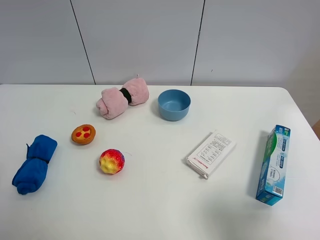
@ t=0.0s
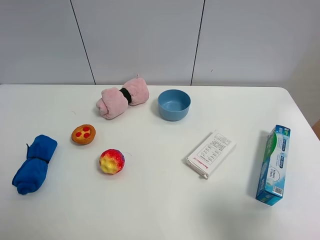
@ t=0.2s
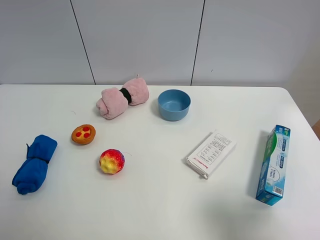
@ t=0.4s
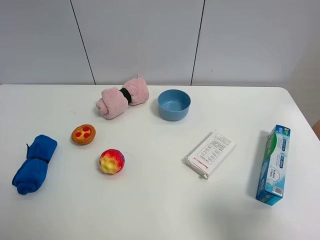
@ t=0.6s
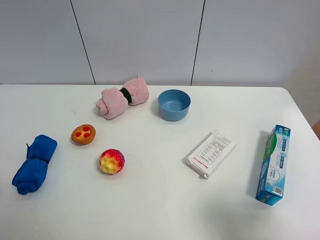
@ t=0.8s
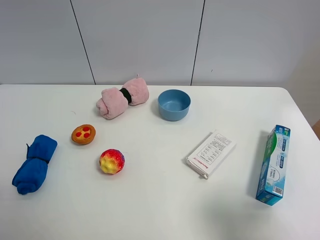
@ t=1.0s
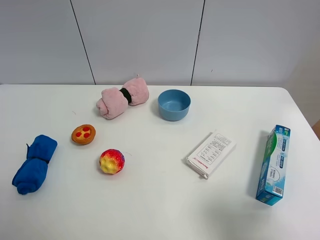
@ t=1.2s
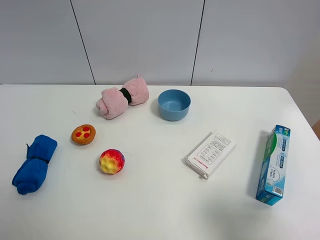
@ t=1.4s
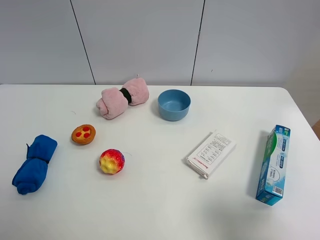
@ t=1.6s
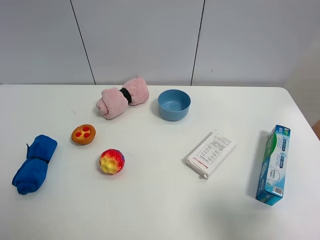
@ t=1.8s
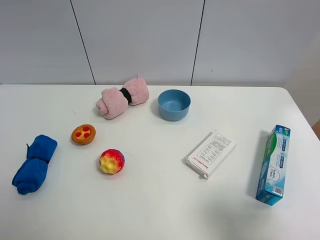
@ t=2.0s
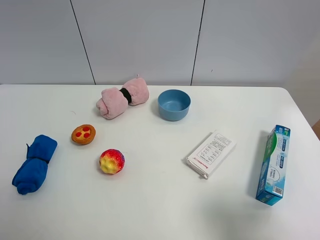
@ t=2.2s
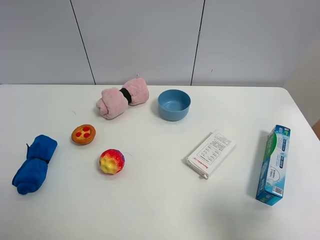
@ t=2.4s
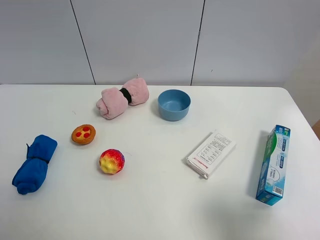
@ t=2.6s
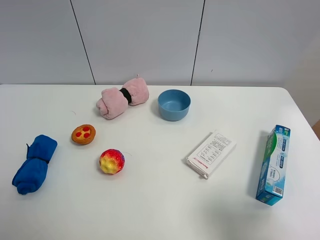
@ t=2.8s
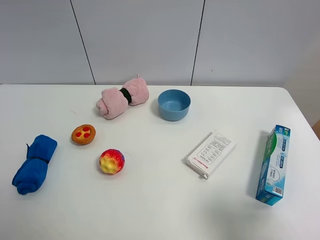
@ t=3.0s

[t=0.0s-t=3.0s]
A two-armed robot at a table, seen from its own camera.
Task of the whole recording: the gripper move the object.
t=1.6s to t=3.0s: Both grippers stay put.

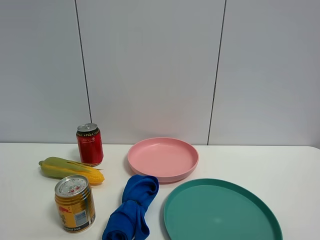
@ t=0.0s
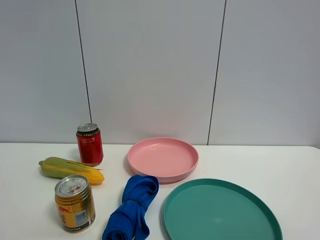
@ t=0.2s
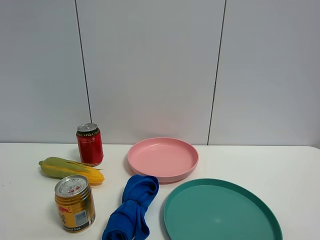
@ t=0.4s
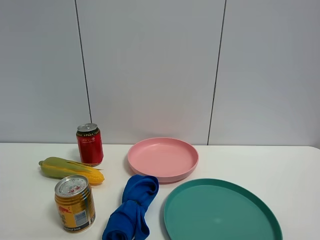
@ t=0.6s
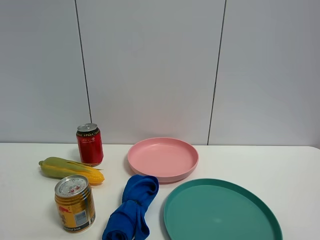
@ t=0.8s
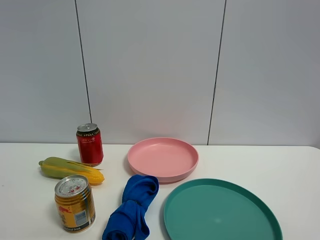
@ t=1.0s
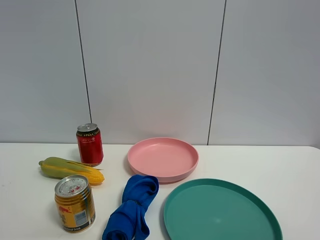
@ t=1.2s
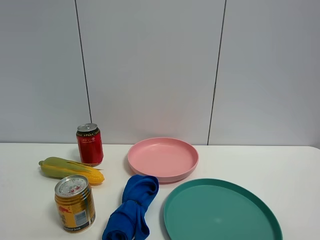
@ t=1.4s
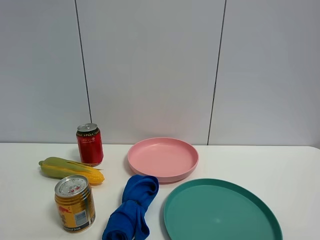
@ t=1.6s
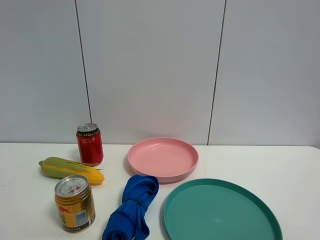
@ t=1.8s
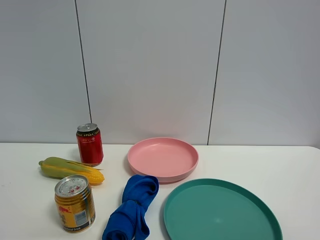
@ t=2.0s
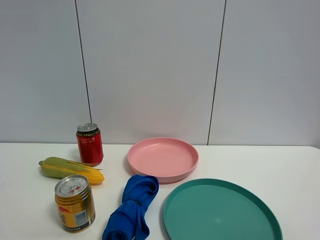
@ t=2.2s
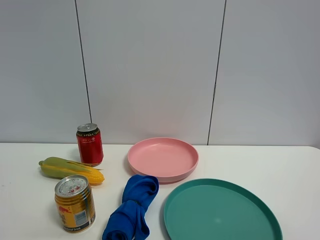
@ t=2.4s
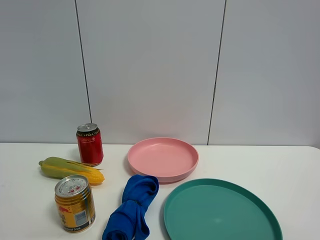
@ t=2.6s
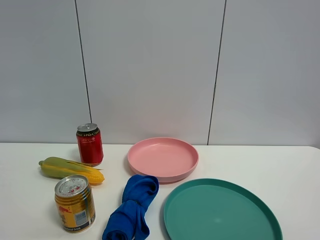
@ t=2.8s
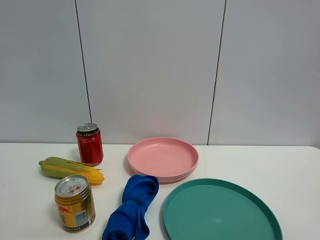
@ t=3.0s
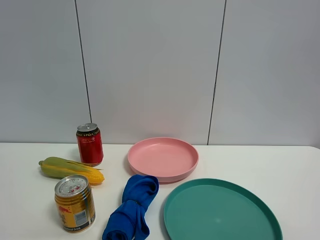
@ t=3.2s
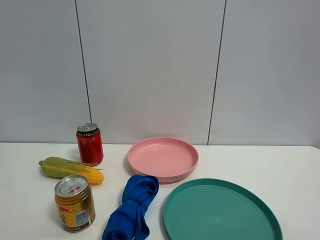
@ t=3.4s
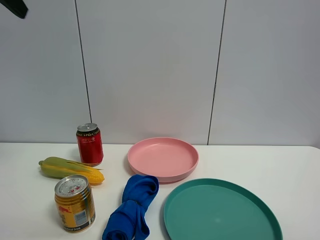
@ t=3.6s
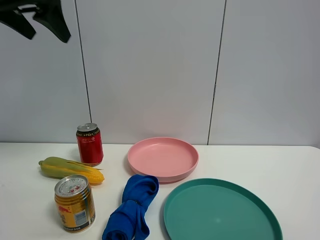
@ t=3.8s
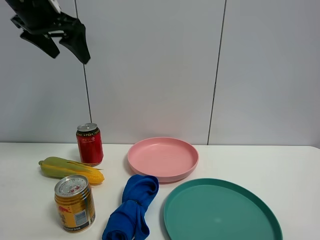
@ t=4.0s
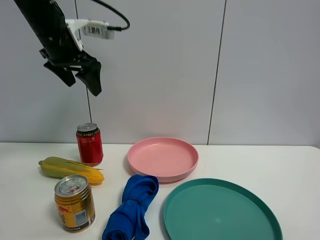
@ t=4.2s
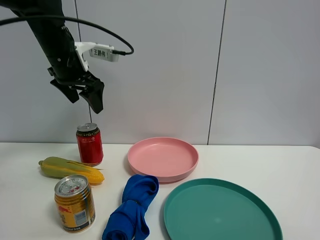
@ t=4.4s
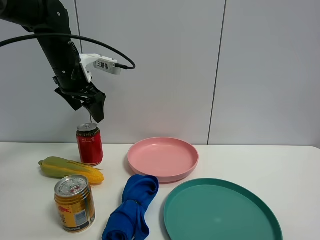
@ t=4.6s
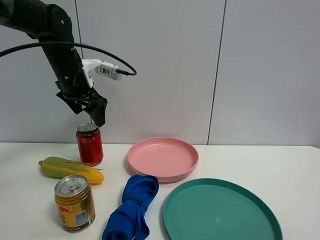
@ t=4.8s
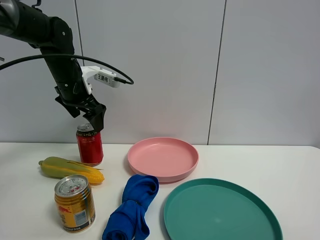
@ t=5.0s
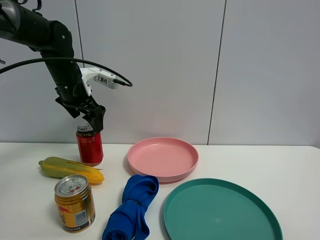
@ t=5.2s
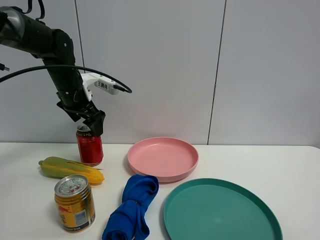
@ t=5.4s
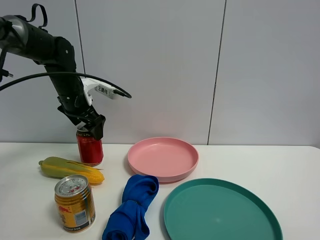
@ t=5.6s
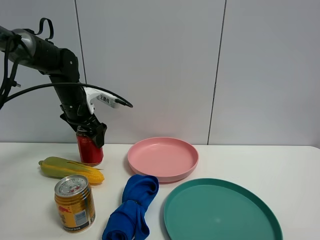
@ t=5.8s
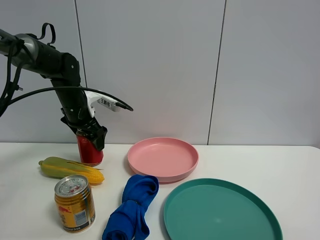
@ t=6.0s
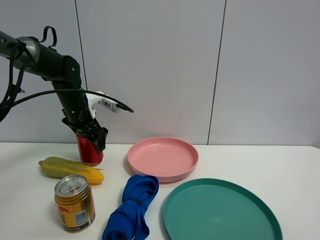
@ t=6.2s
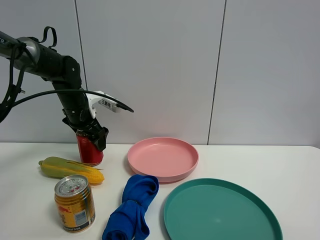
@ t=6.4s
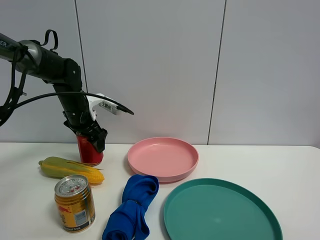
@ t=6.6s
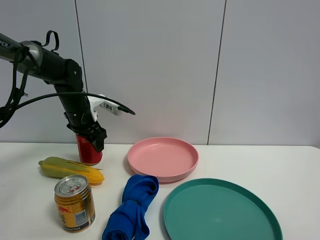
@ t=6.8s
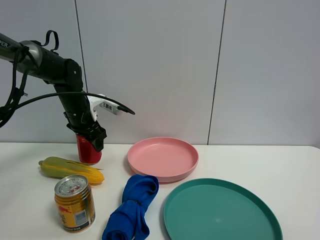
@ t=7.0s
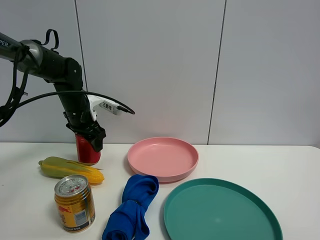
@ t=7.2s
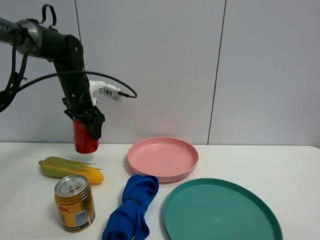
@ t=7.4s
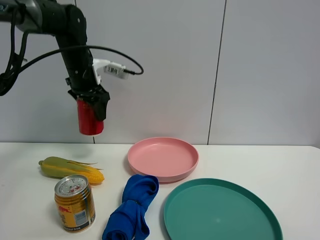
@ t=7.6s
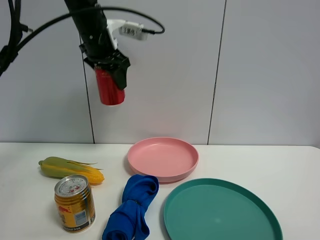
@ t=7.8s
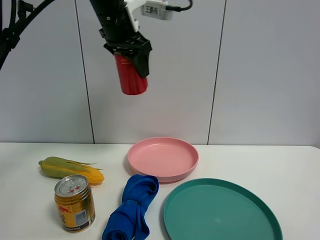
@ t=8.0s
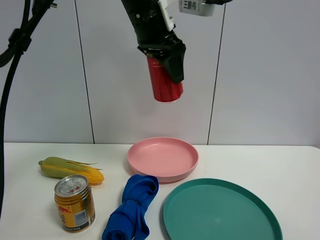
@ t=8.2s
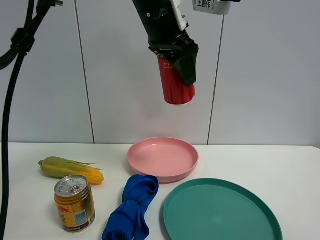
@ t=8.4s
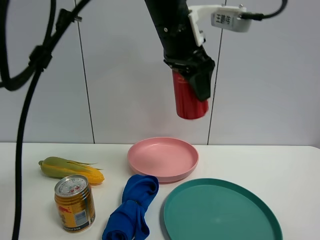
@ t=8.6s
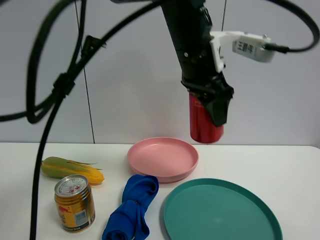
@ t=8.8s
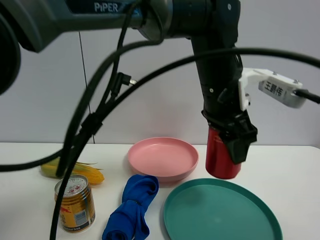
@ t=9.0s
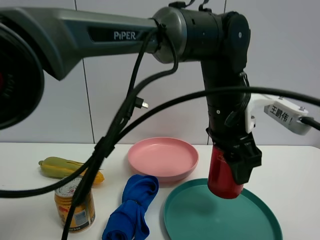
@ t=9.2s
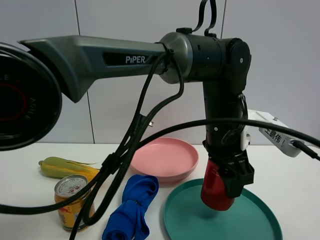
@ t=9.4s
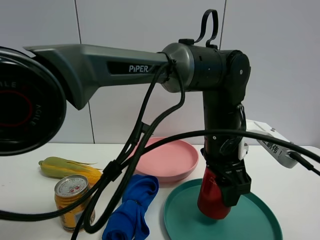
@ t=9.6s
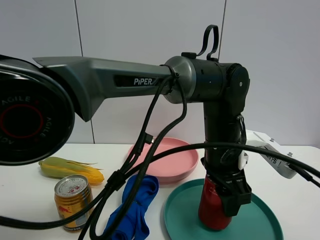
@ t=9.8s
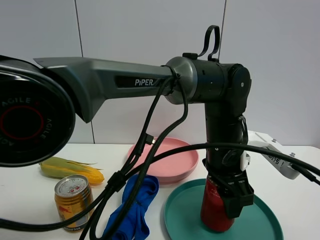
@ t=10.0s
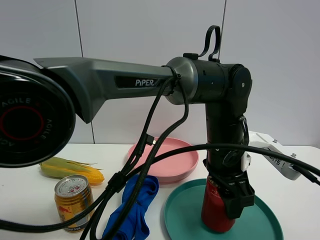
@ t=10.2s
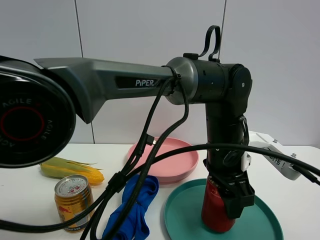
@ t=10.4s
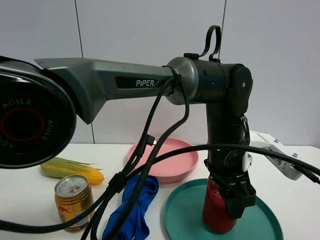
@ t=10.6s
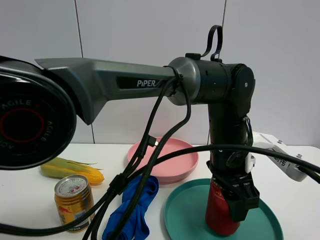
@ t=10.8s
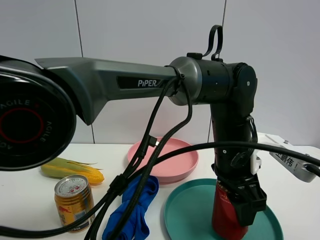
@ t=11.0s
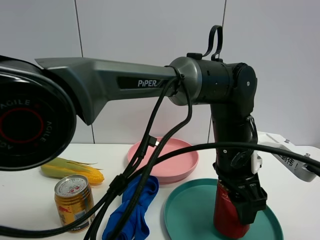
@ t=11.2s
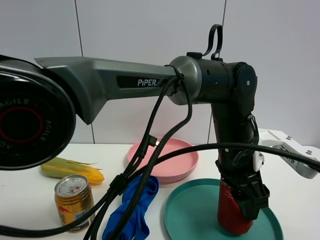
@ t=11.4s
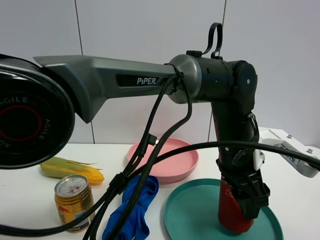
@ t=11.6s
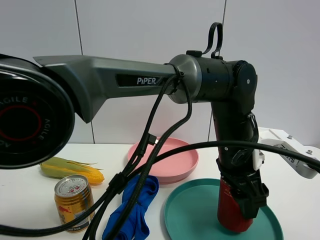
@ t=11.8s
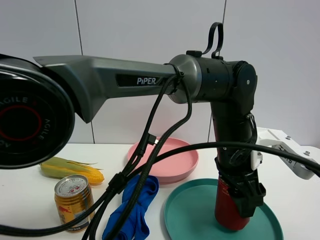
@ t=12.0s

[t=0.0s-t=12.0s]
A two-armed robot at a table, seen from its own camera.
Task of the whole recording: the gripper move the object.
Step, t=0.0s to t=7.0s: Grasp the Jia Duo Bao with the left gripper.
t=3.0s to t=4.4s: The left gripper moves forward and downward, approximately 35 cm.
t=4.4s to t=6.0s: The left gripper travels downward by about 10 cm, and opens up.
t=6.0s to t=7.6s: The left gripper heads upward, covering about 10 cm, and closes its fingers.
t=7.6s to t=9.0s: The left gripper travels to the right and backward by approximately 35 cm.
t=9.0s to t=10.4s: The left gripper goes some 10 cm downward.
t=10.4s to t=12.0s: The grippers move only a little.

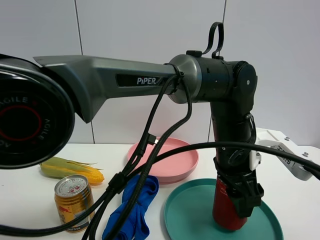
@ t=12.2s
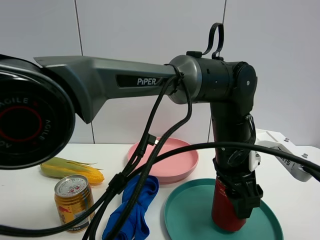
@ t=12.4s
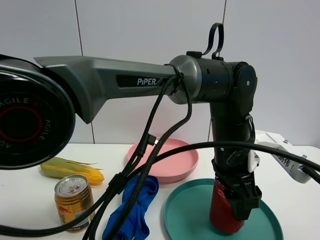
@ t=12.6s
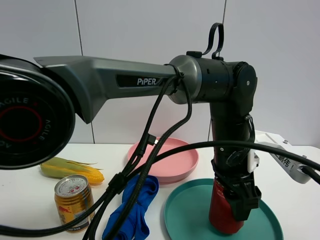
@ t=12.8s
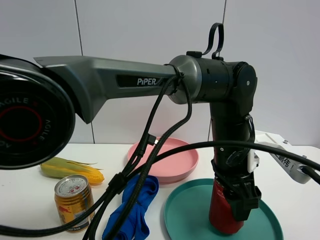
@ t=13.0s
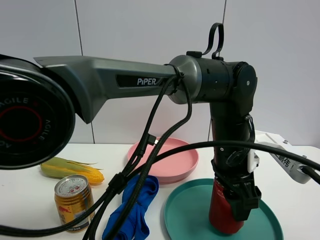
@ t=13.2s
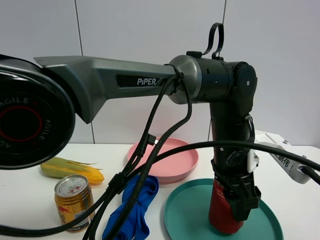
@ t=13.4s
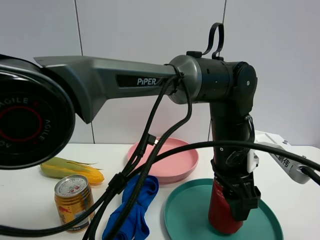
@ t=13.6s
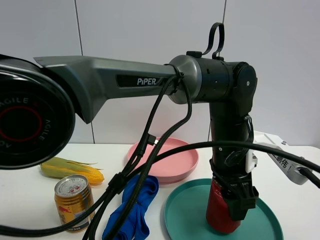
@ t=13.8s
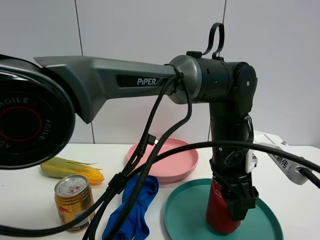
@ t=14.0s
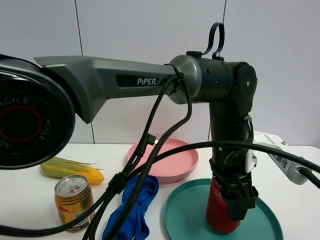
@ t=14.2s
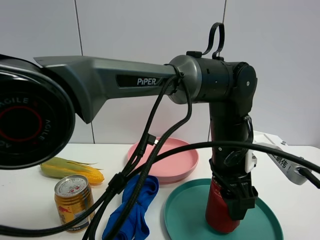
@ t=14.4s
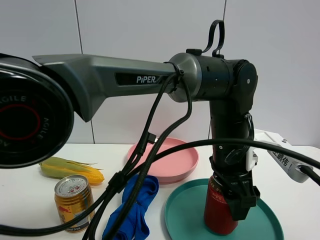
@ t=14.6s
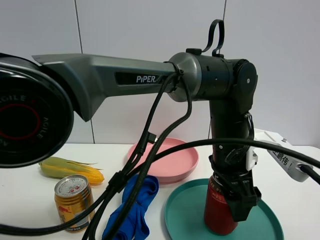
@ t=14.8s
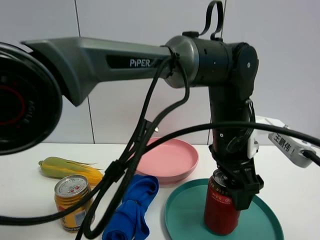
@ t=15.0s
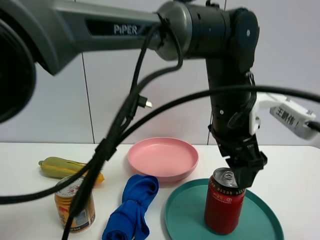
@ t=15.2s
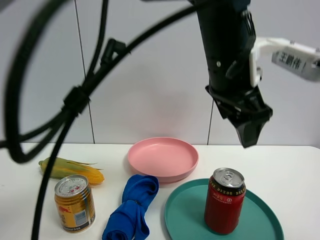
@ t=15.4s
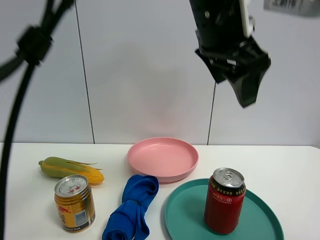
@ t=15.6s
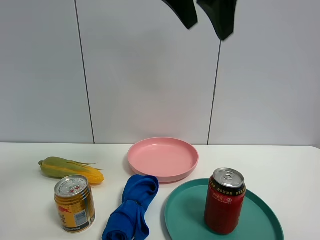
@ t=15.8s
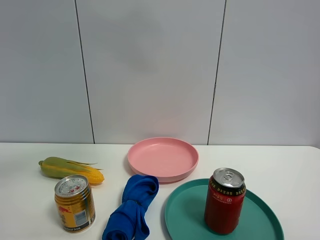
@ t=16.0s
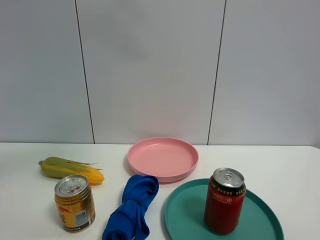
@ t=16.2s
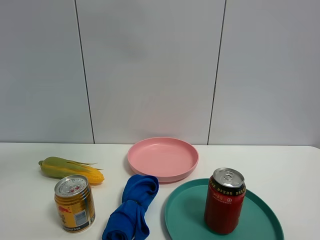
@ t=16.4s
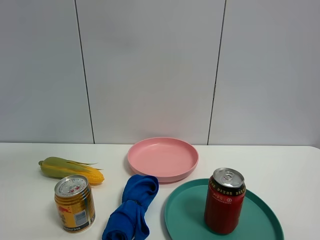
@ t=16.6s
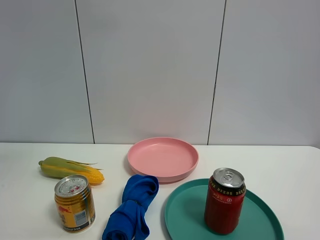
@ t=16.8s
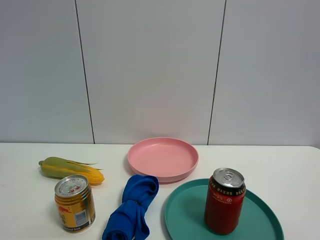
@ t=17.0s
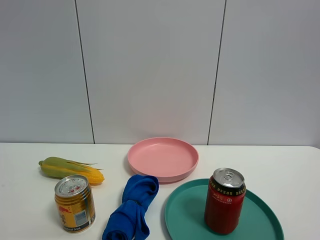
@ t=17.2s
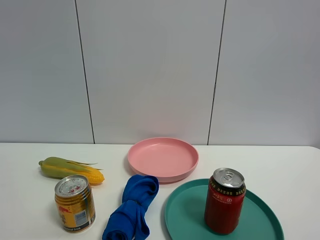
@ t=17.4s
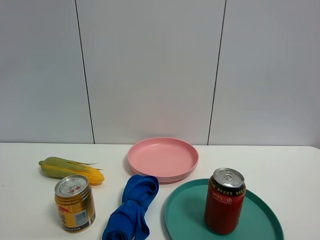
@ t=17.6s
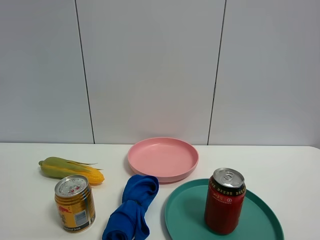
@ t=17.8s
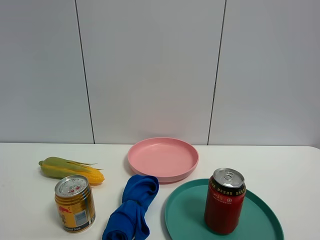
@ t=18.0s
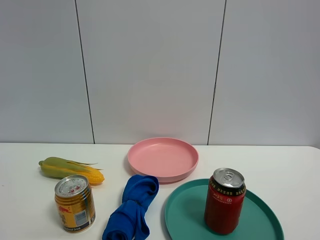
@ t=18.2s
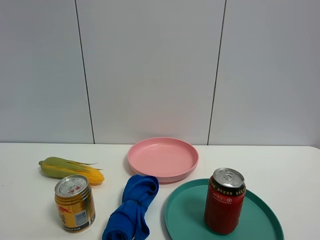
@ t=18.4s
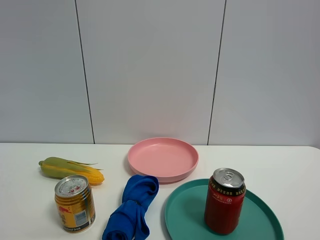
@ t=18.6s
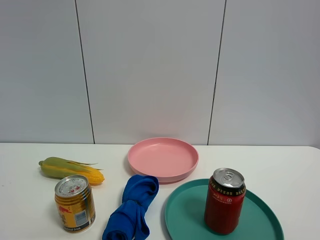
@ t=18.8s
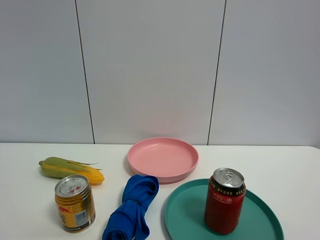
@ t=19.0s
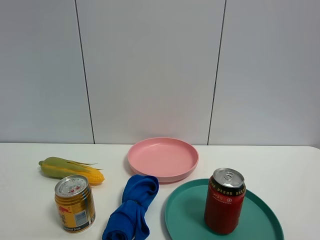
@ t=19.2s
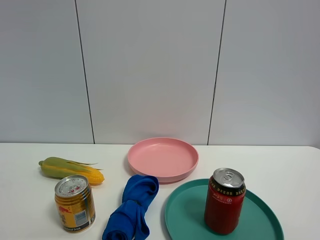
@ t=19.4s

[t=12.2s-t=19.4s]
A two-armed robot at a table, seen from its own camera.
Task of the whole recording: the gripper move the object.
Step, t=12.2s to t=15.0s: Place the Jia Duo Bao into the green plate with the left gripper.
t=12.2s to t=13.6s: Both grippers stay about where they are.
t=13.6s to t=15.0s: The left gripper opens.
t=15.0s to t=16.6s: The left gripper is displaced upward and to the left by about 40 cm.
t=16.6s to t=18.0s: The left gripper moves to the left and backward, about 35 cm.
